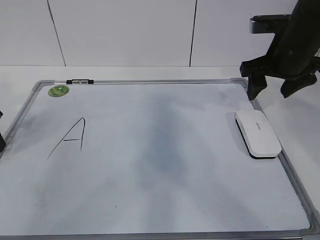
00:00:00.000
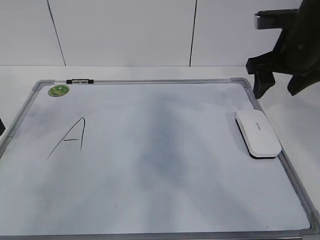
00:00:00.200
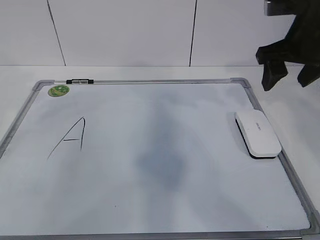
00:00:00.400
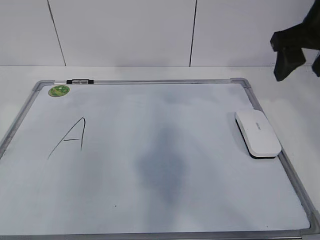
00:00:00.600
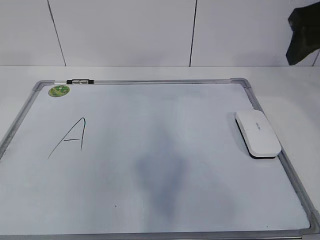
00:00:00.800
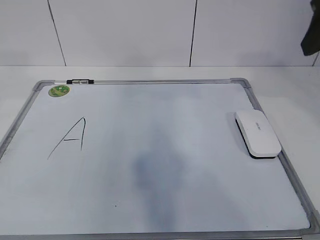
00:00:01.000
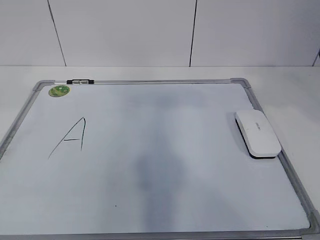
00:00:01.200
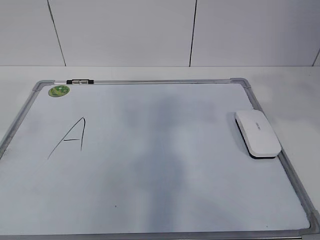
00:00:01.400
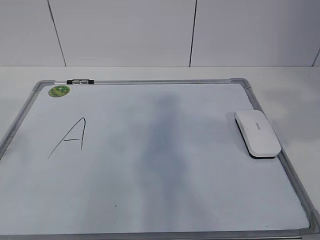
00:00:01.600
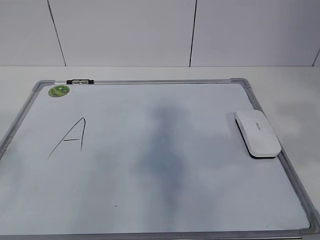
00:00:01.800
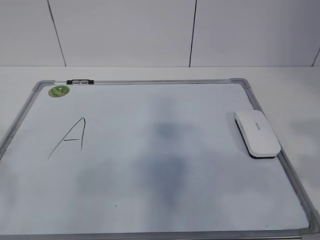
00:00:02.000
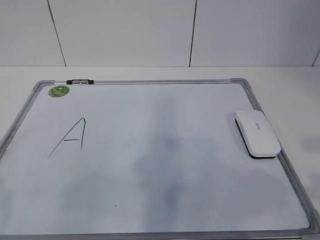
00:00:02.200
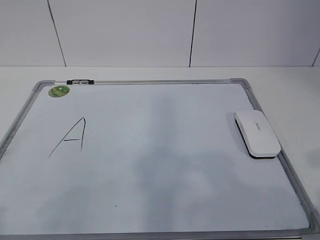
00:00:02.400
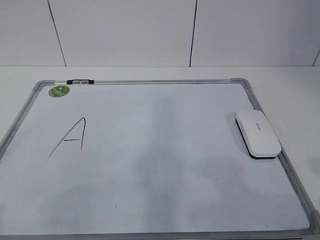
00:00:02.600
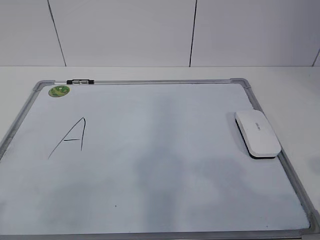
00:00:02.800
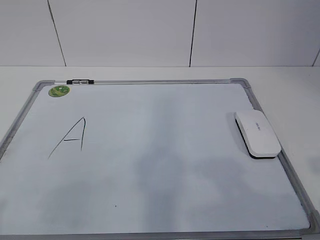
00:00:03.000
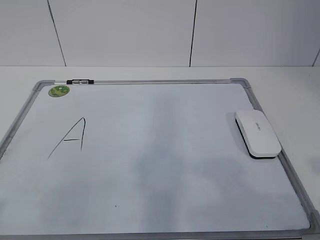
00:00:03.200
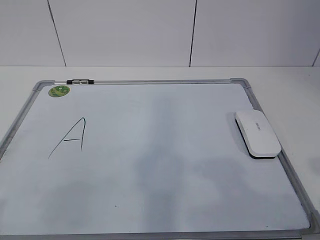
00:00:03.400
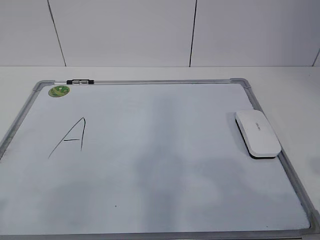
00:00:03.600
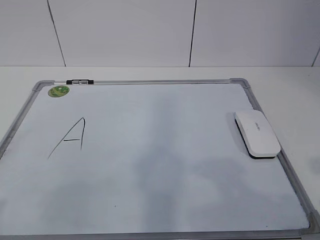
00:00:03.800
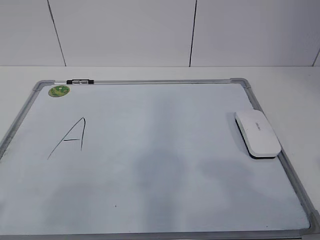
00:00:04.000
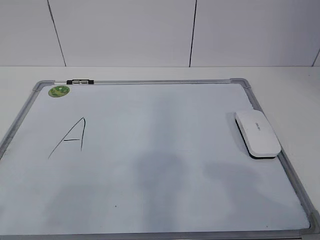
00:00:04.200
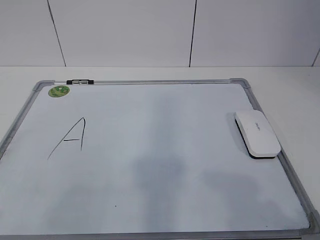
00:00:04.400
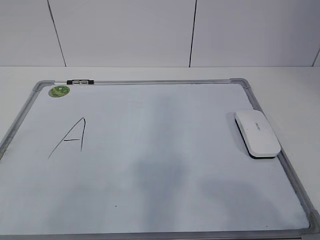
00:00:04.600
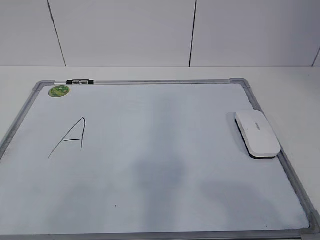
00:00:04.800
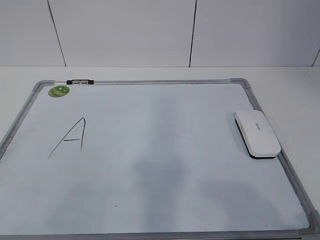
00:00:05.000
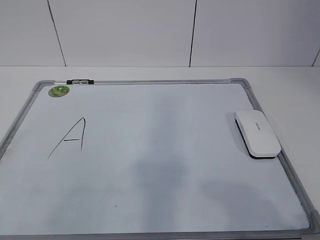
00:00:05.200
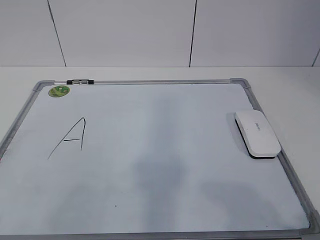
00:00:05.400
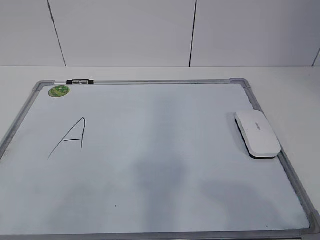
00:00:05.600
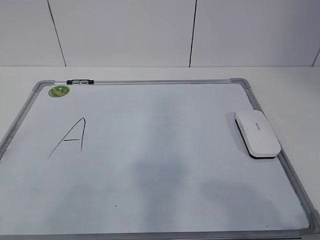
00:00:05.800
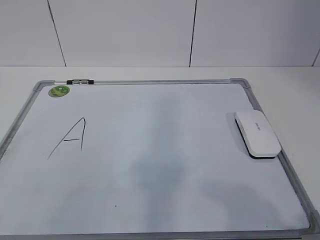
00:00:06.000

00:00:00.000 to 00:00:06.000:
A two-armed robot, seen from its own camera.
Task of the whole recording: pick up the eraser on the blackboard and erase the letter "a".
00:00:00.000 to 00:00:01.600: The grippers both shift backward and upward by some 30 cm.
00:00:01.600 to 00:00:03.000: The left gripper goes some 10 cm downward and backward. The right gripper travels backward and downward by about 15 cm.

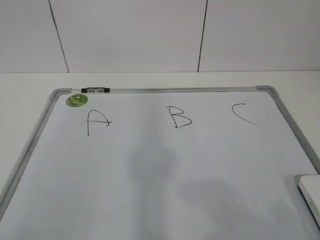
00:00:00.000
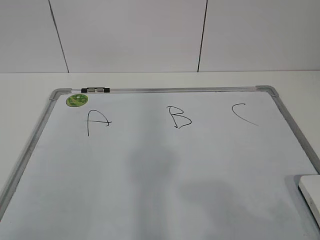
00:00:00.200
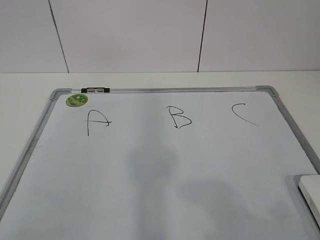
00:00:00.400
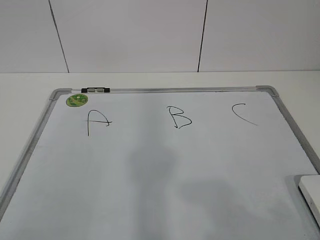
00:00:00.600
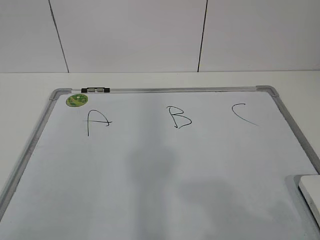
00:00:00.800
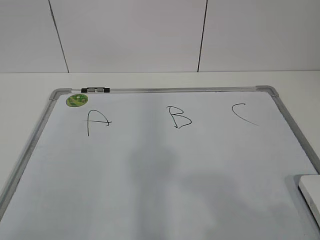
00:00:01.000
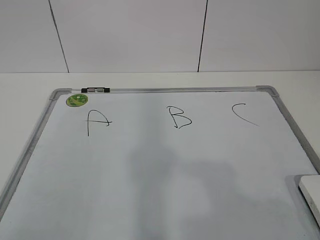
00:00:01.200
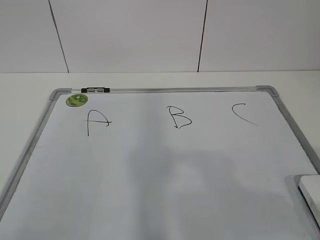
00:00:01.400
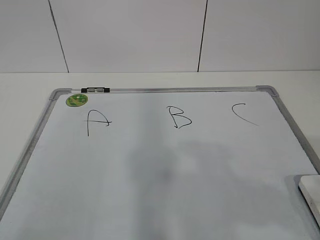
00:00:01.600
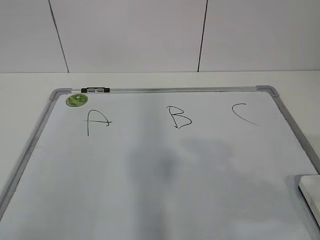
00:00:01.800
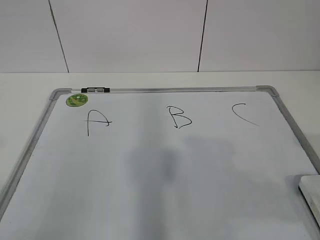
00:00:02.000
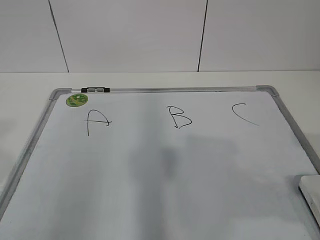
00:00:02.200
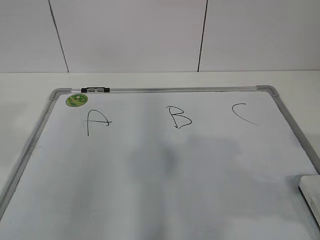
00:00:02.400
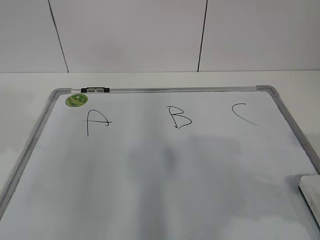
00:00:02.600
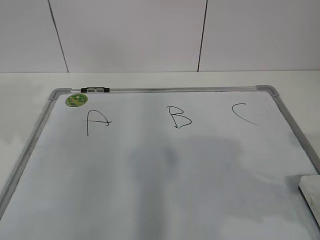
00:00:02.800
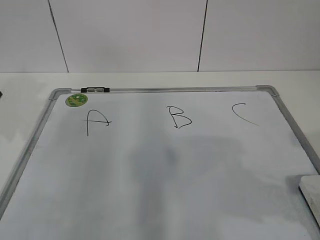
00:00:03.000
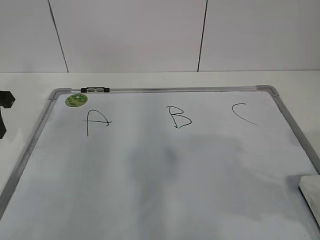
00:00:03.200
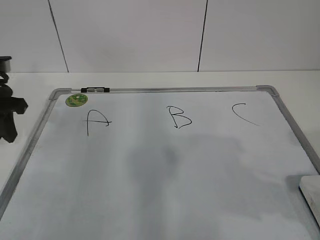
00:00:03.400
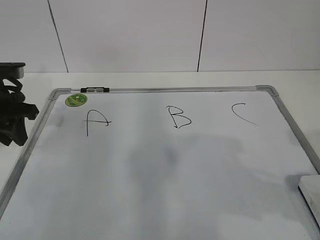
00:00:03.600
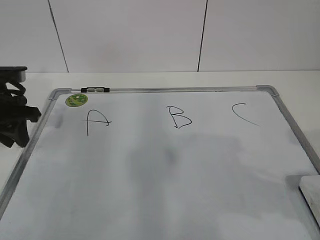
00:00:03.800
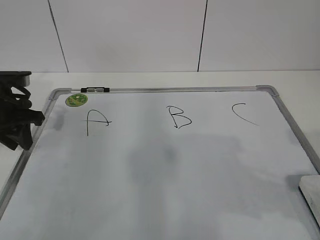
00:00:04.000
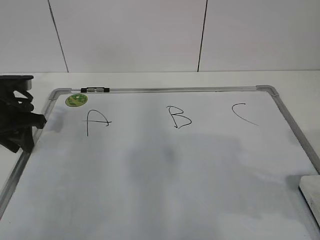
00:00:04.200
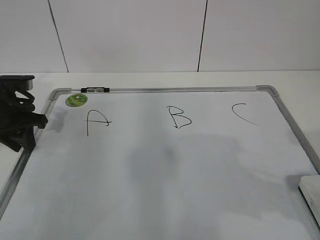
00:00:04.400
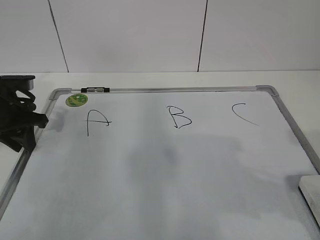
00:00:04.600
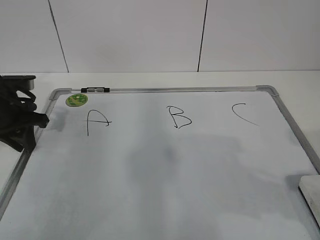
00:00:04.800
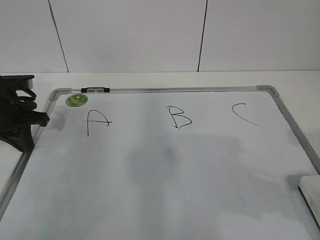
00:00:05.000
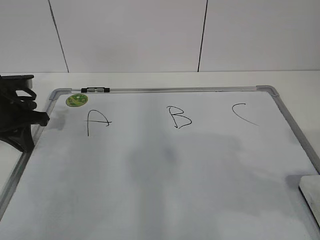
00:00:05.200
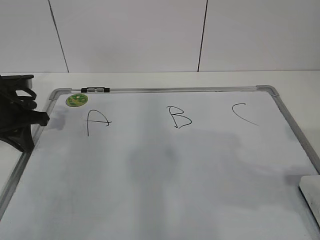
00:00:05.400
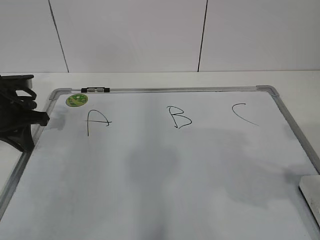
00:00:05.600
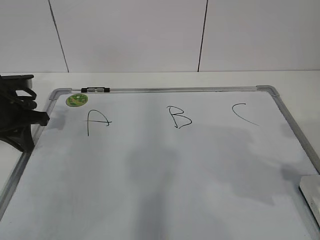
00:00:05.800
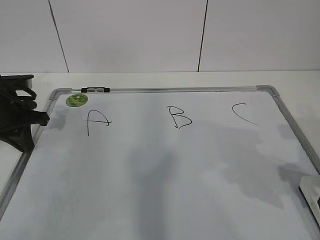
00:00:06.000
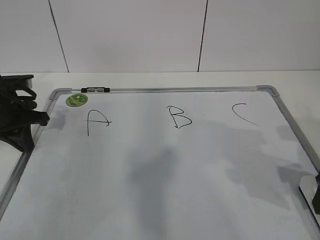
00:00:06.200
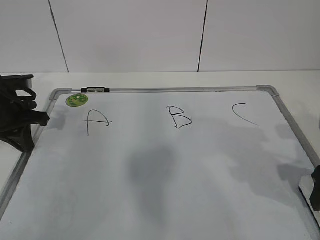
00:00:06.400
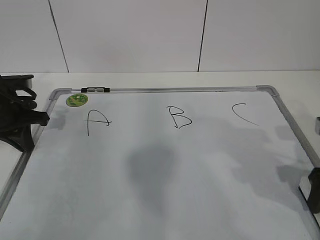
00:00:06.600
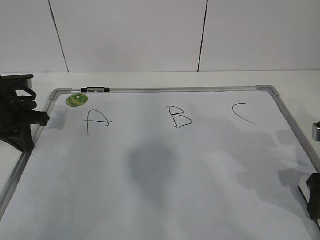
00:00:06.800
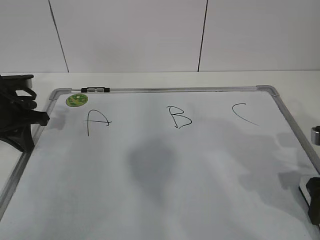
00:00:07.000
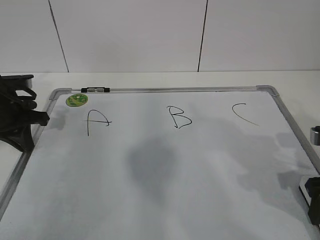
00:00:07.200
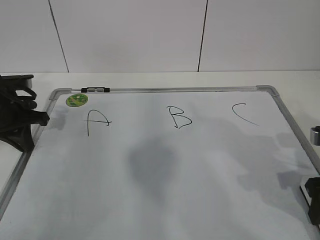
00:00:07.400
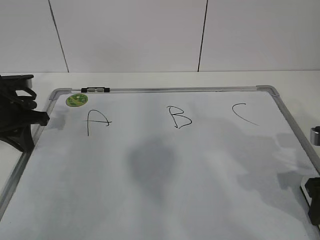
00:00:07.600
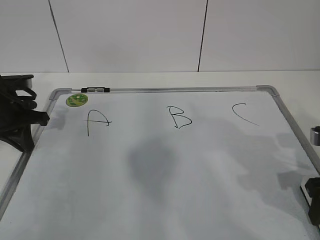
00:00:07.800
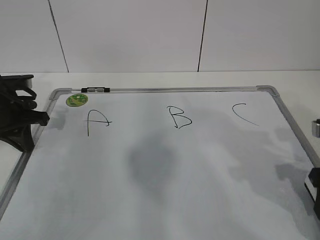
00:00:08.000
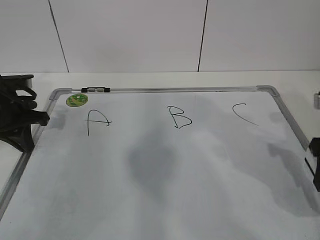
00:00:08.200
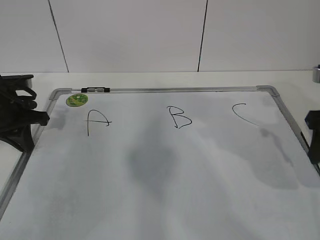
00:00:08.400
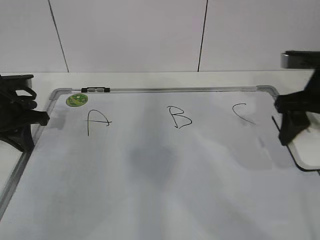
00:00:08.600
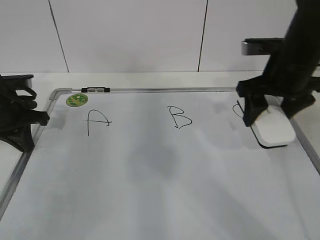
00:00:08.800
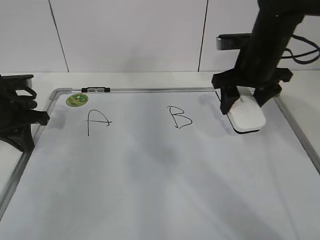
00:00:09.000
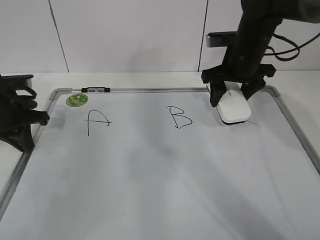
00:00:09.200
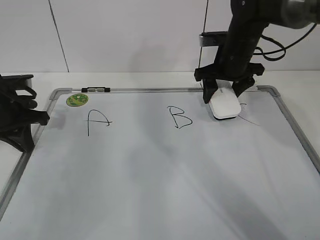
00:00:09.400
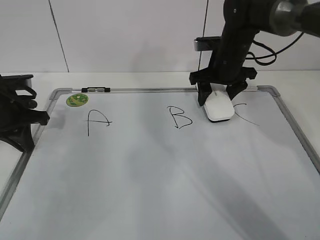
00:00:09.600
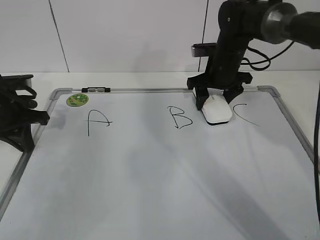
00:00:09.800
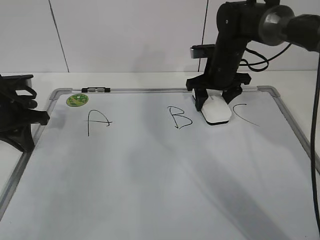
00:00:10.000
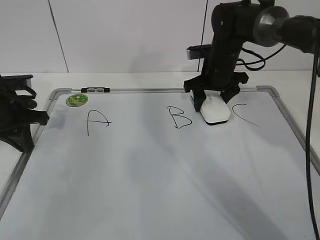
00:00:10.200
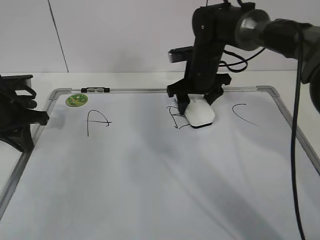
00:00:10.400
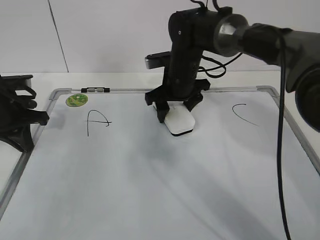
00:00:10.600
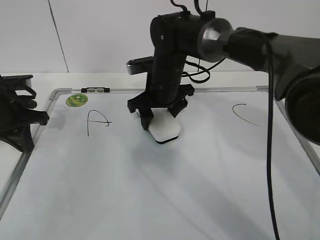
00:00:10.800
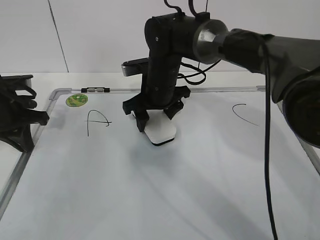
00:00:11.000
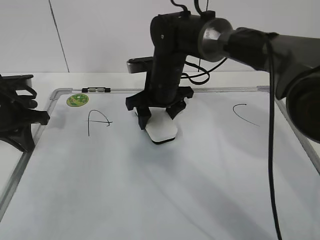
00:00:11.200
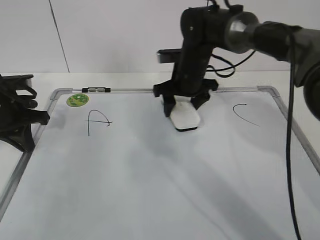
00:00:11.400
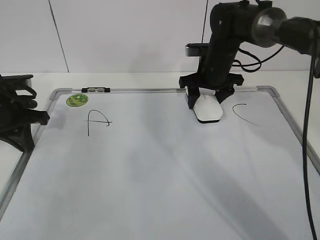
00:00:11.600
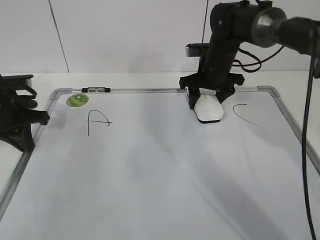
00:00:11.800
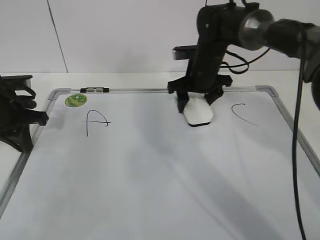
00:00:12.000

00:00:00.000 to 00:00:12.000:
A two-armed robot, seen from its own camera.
Task of the whole recording: pick up the eraser on the blackboard and erase the letter "B".
Step, 00:00:00.000 to 00:00:04.000: Hold the drawing board steady with your left hand.
Step, 00:00:06.400 to 00:00:10.400: Erase the letter B with your right hand.
00:00:01.600 to 00:00:03.000: The left gripper goes roughly 30 cm forward.
00:00:03.000 to 00:00:04.400: The left gripper heads downward and forward, covering roughly 10 cm.
00:00:04.400 to 00:00:06.000: The left gripper closes.
00:00:06.000 to 00:00:07.600: The right gripper moves about 5 cm, and closes.
00:00:07.600 to 00:00:09.000: The right gripper moves forward, to the left and upward, about 20 cm.
00:00:09.000 to 00:00:10.400: The right gripper is displaced forward, to the left and downward by some 15 cm.
00:00:10.400 to 00:00:12.000: The right gripper moves about 10 cm to the left and comes back.

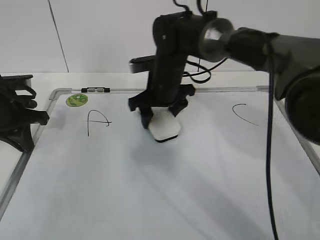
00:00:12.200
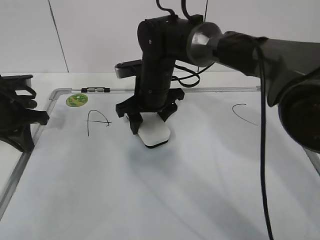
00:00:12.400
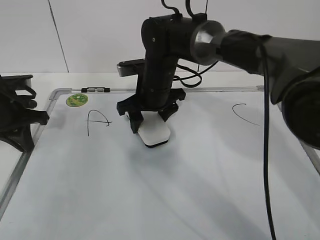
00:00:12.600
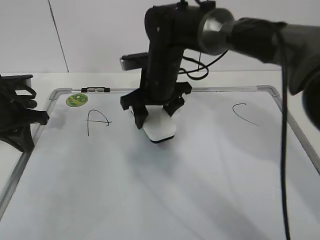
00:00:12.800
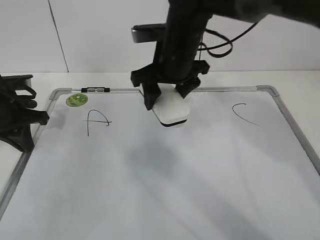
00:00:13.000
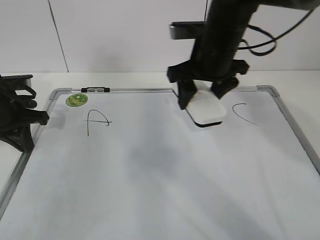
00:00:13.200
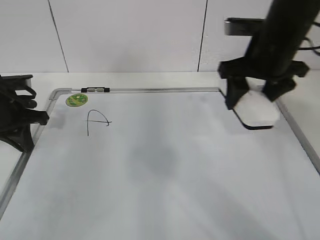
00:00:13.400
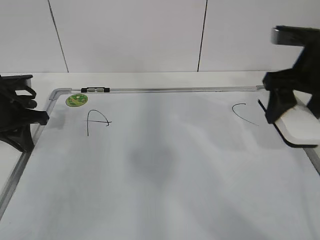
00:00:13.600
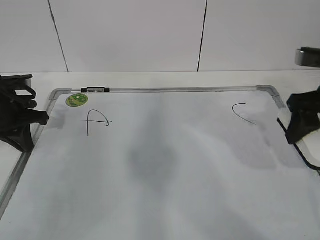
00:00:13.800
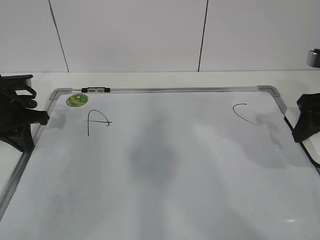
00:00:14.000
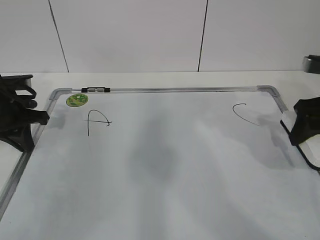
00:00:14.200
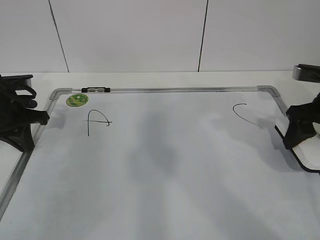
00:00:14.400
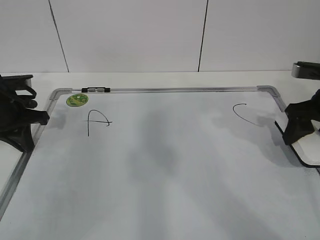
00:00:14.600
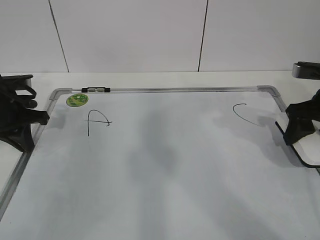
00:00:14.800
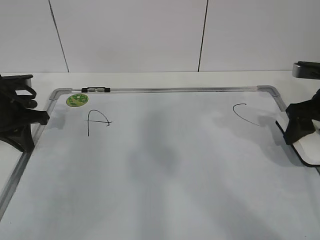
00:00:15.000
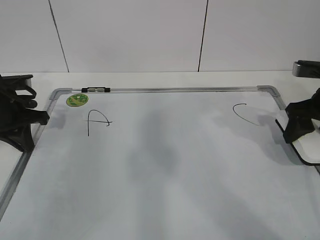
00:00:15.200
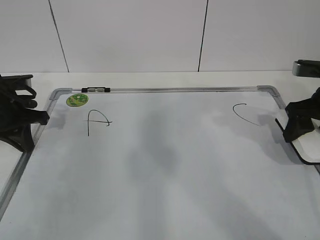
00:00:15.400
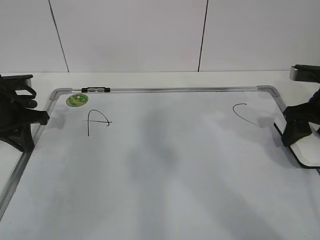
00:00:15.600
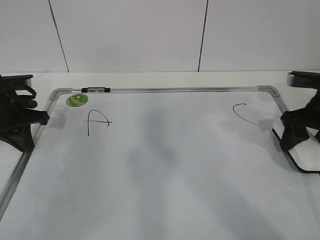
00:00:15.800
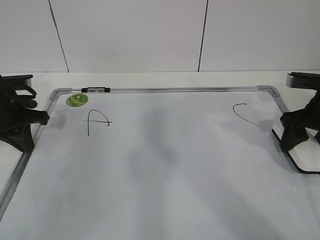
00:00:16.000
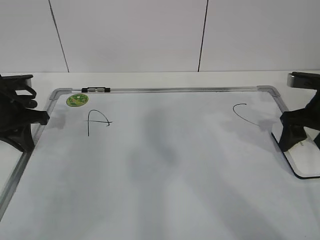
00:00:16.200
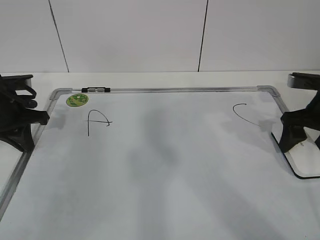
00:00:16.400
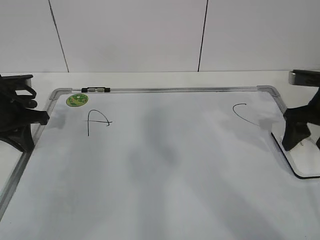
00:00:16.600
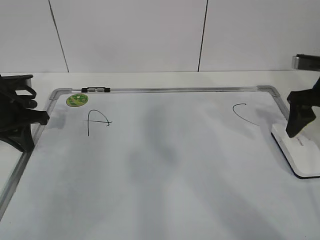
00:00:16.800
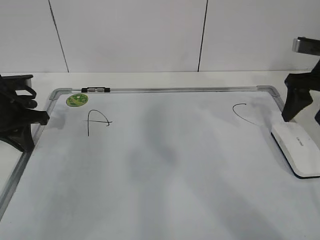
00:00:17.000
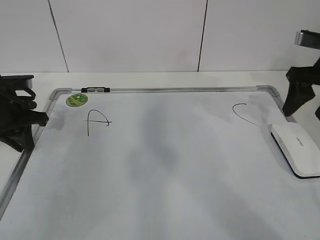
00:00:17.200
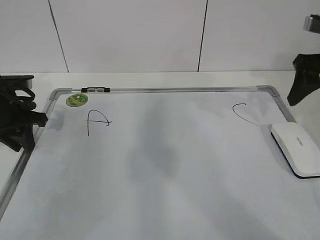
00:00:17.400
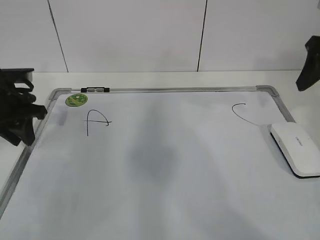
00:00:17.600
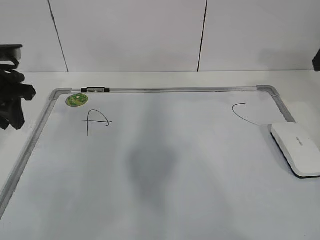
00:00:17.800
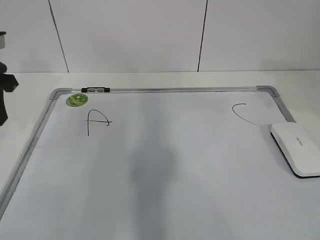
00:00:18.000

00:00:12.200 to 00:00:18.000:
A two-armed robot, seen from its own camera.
Task of the whole recording: pick up the eraser on the blackboard and erase the letter "B".
00:00:12.200 to 00:00:13.600: The right gripper moves to the right, upward and backward, about 25 cm.
00:00:13.600 to 00:00:15.000: The right gripper shifts some 10 cm to the right and downward.
00:00:15.000 to 00:00:16.600: The right gripper opens its fingers.
00:00:16.600 to 00:00:18.000: The right gripper shifts about 20 cm upward and backward, and closes. Meanwhile the left gripper heads upward, covering roughly 10 cm, and opens up.
